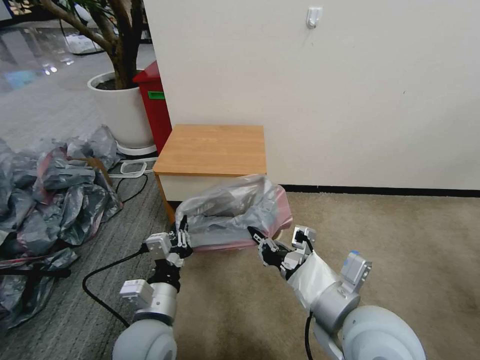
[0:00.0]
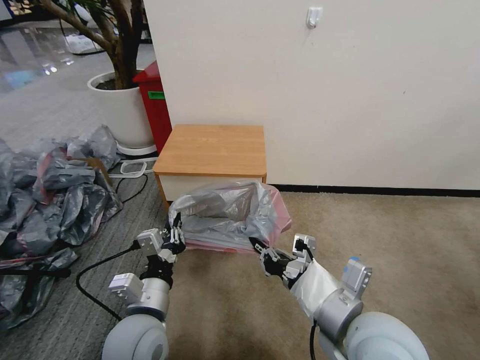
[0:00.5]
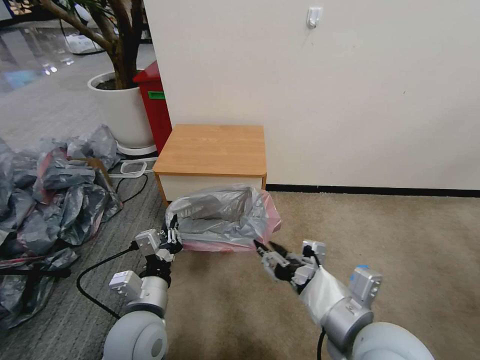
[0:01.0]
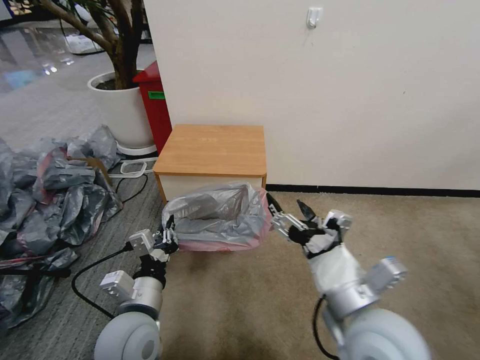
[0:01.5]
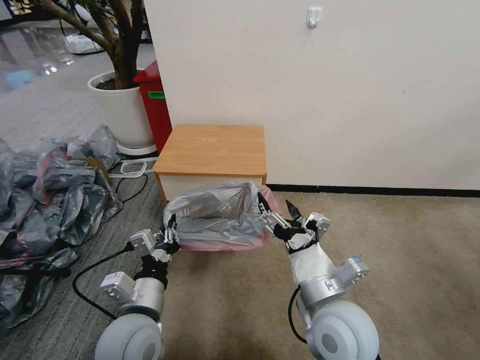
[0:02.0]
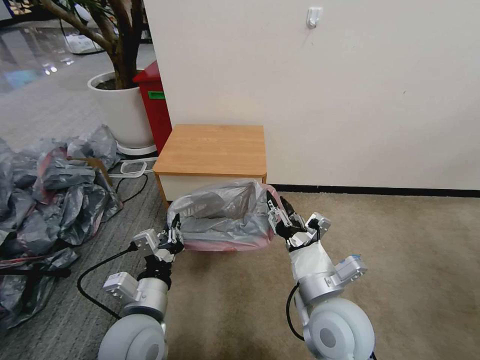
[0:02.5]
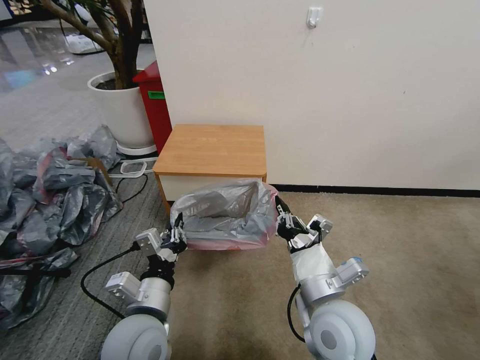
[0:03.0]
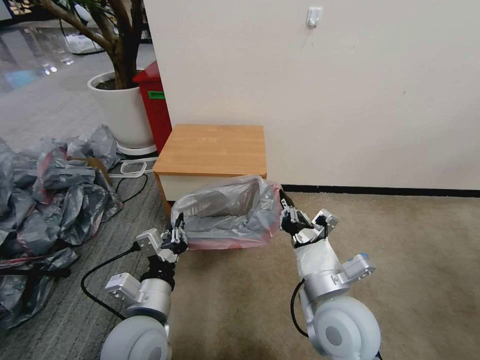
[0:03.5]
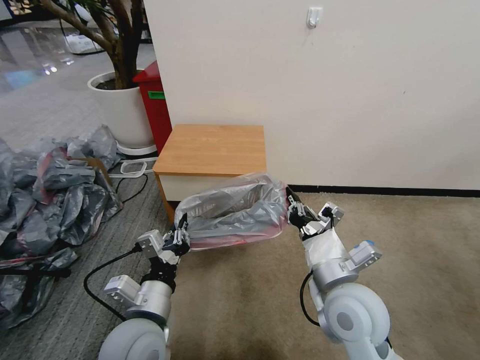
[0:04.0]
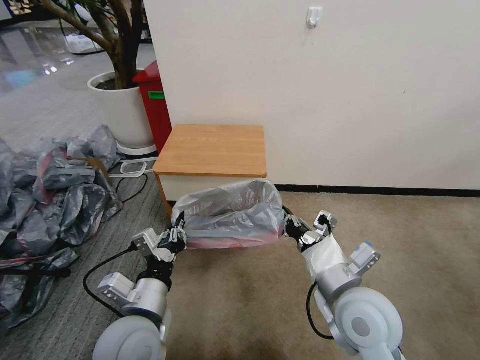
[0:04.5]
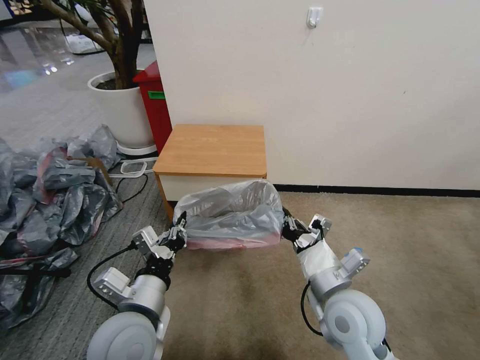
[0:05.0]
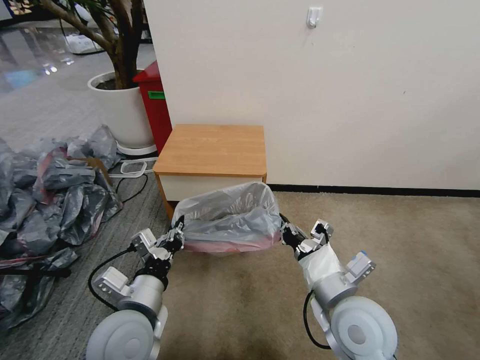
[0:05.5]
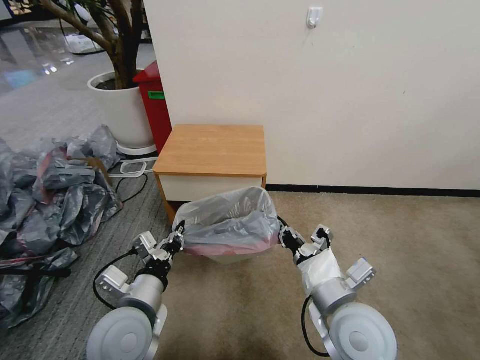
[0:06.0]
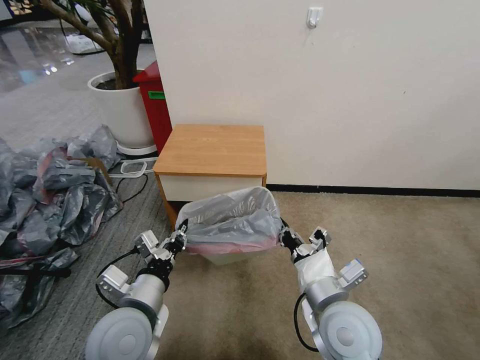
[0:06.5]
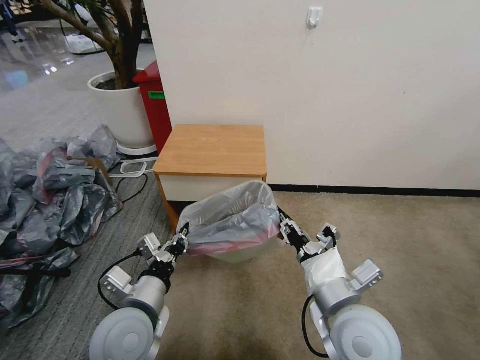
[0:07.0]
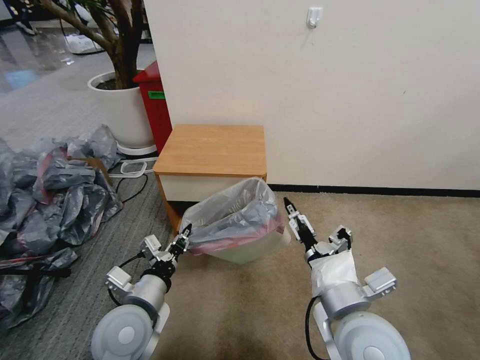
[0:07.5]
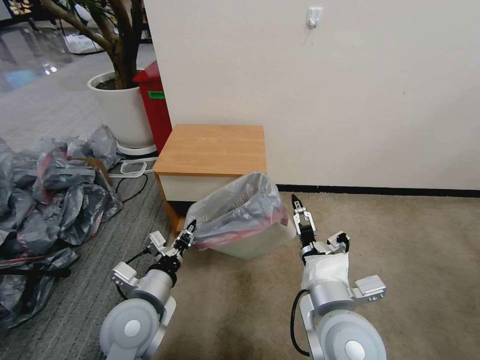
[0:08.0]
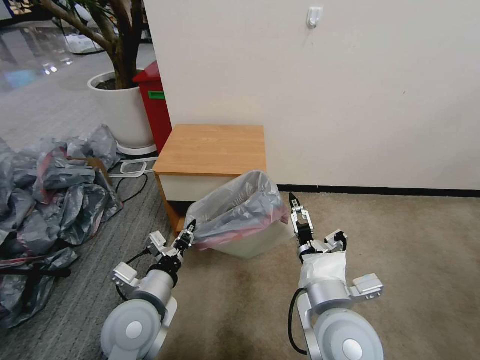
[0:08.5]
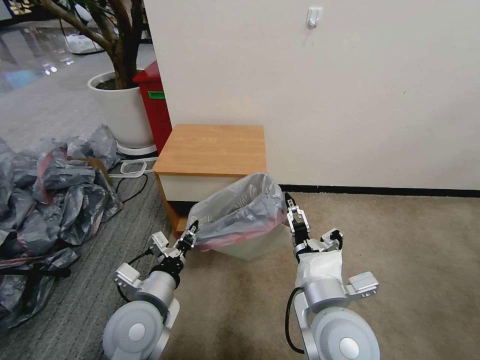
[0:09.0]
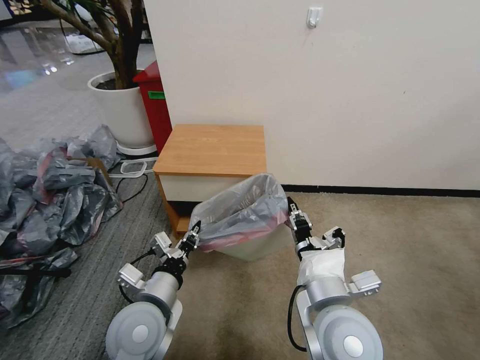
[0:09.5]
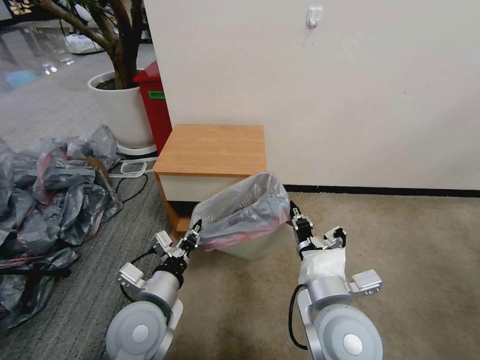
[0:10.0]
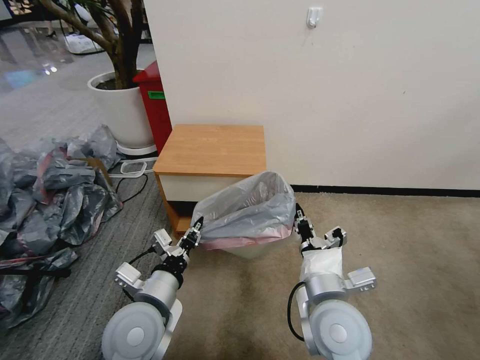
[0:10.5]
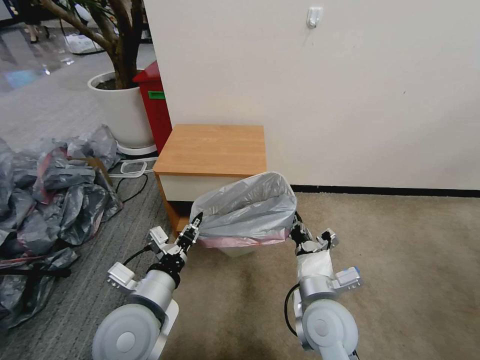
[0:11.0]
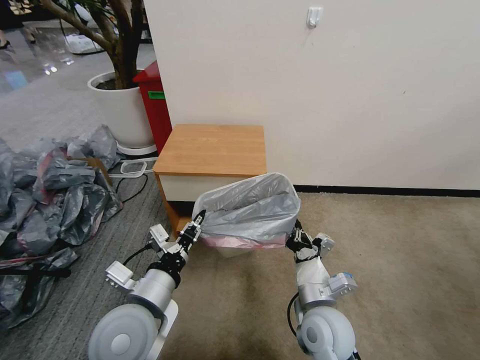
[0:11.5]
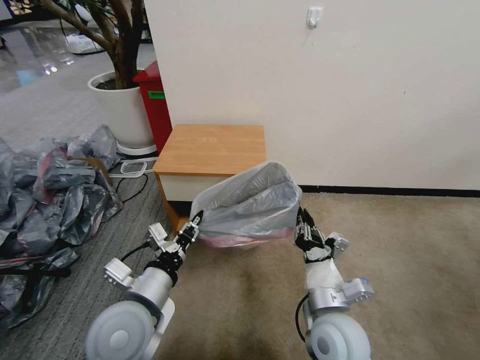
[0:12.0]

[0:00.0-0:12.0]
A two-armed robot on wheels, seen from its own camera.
Task of the whole recording: Pick up the garbage bag from the table and place it over the trash can.
0:00.0 to 0:02.0: The right gripper goes roughly 5 cm downward, and opens.
0:02.0 to 0:04.0: The right gripper closes up.
0:04.0 to 0:06.0: There are only small adjustments of the grippers.
0:06.0 to 0:08.0: The right gripper opens up.
0:08.0 to 0:10.0: The right gripper closes up.
0:10.0 to 0:12.0: The right gripper travels downward by roughly 10 cm.

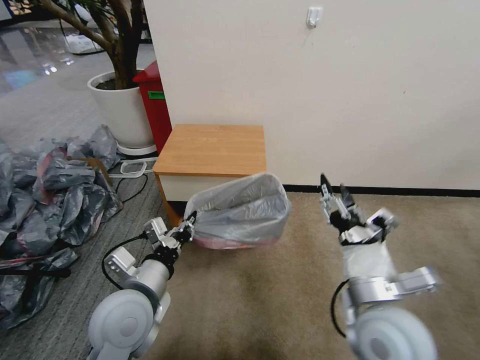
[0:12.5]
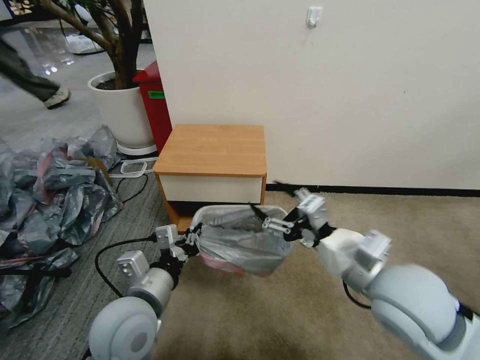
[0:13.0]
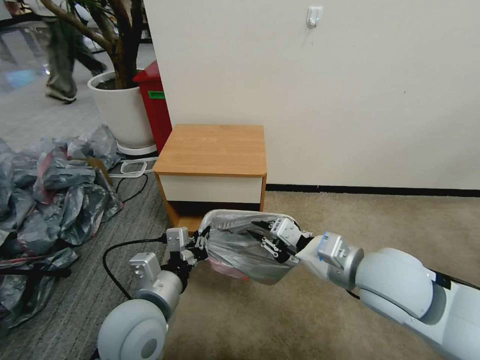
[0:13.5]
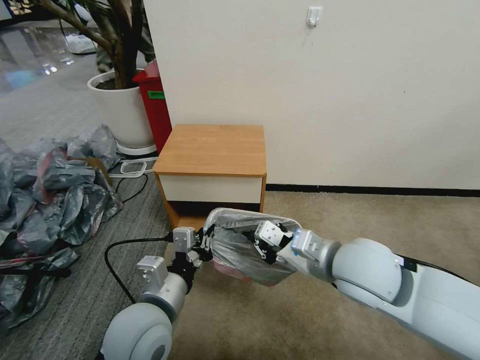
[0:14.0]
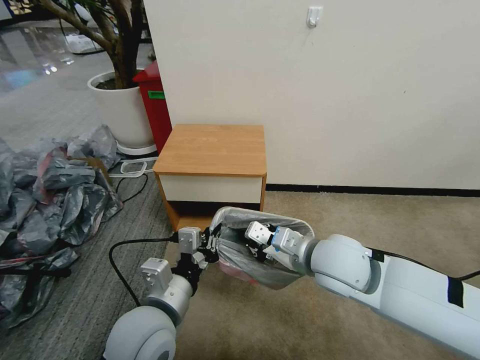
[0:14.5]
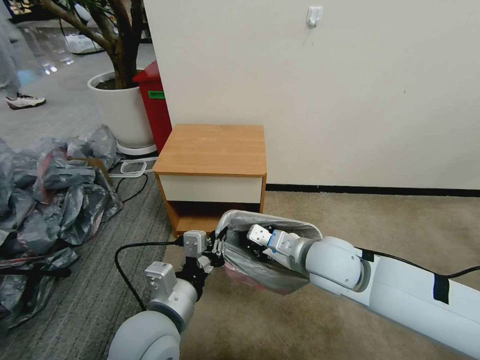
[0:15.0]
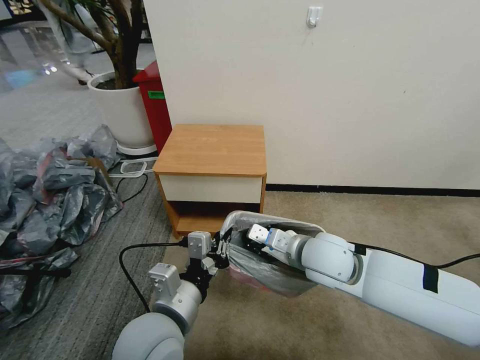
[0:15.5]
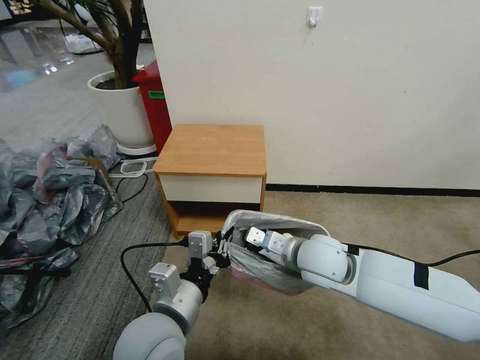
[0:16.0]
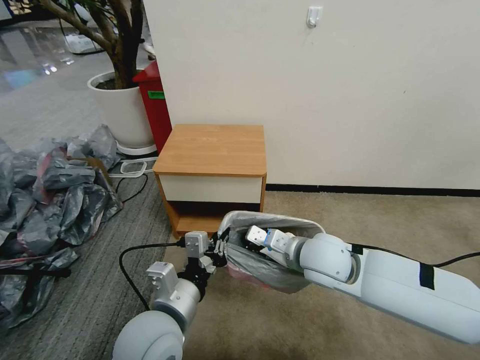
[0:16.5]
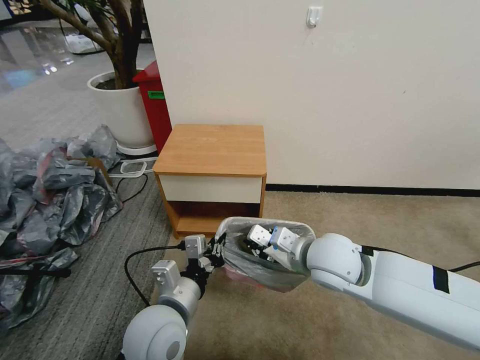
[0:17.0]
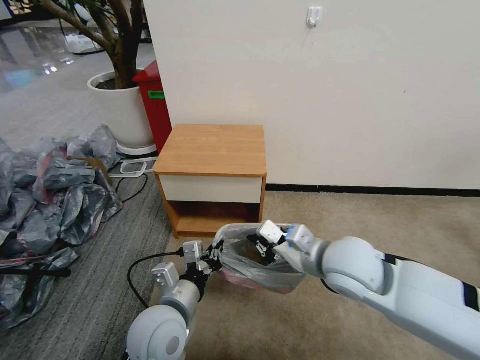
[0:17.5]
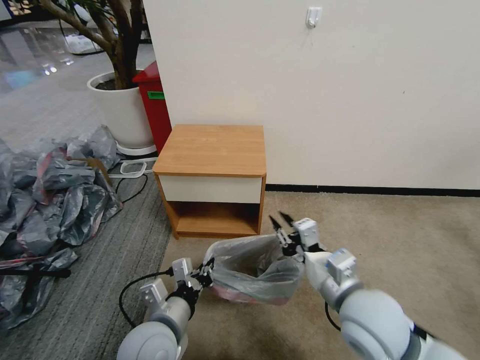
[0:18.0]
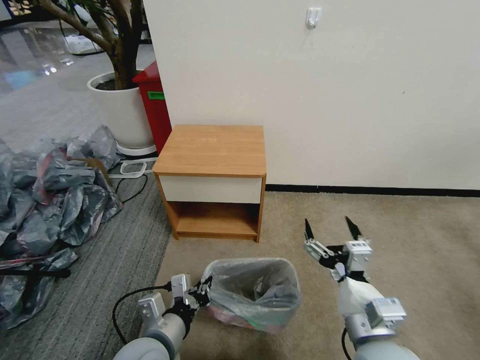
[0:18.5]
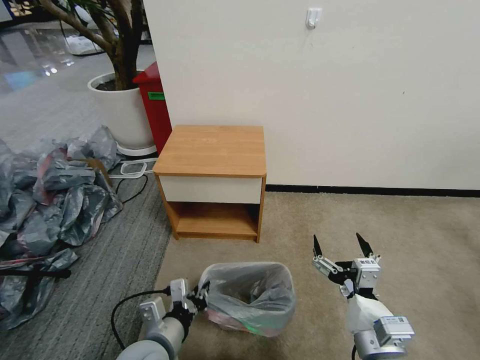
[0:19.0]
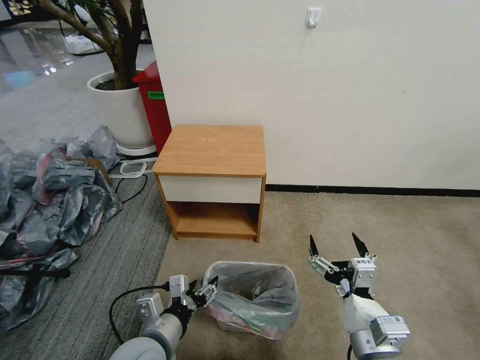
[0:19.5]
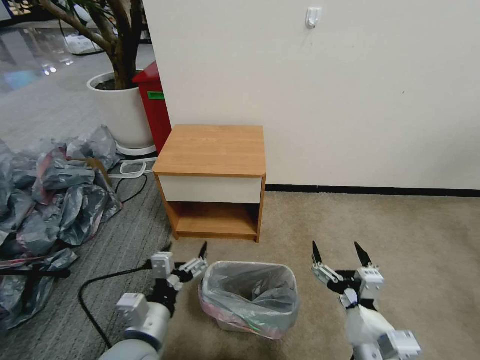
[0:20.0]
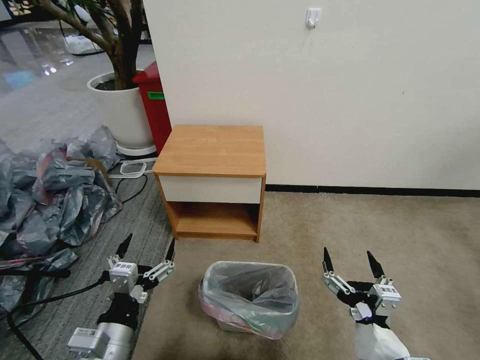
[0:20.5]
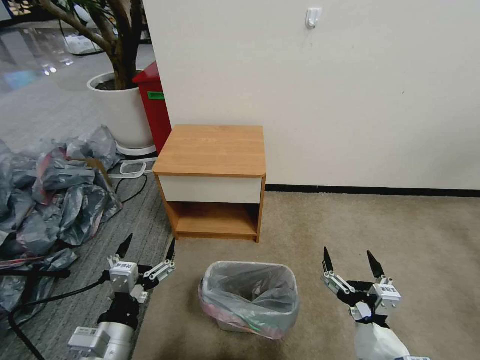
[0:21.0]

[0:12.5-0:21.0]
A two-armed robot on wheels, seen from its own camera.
Task of the whole recording: Pick up the garbage bag from the table and place it over the trash can.
0:12.5 to 0:14.5: The left gripper ends up approximately 5 cm from where it was. Meanwhile the right gripper heads forward, covering about 10 cm, and closes.
0:14.5 to 0:16.5: There are only small adjustments of the grippers.
0:16.5 to 0:19.0: The left gripper moves downward, about 10 cm, while the right gripper heads backward, covering about 20 cm, and opens up.
0:19.0 to 0:21.0: The left gripper travels to the left by approximately 5 cm, and opens up.
